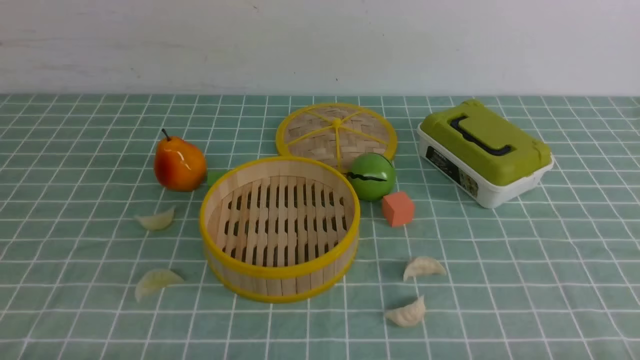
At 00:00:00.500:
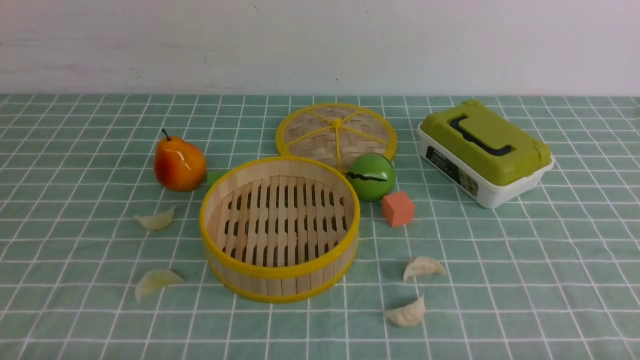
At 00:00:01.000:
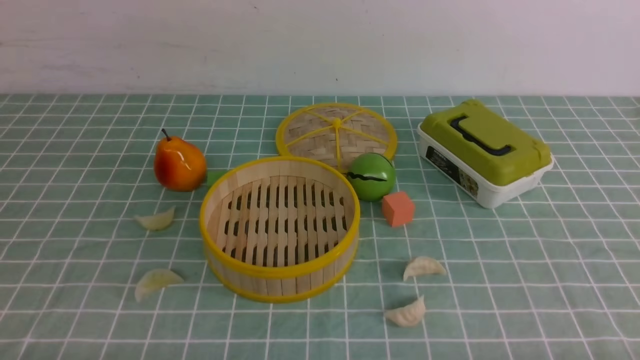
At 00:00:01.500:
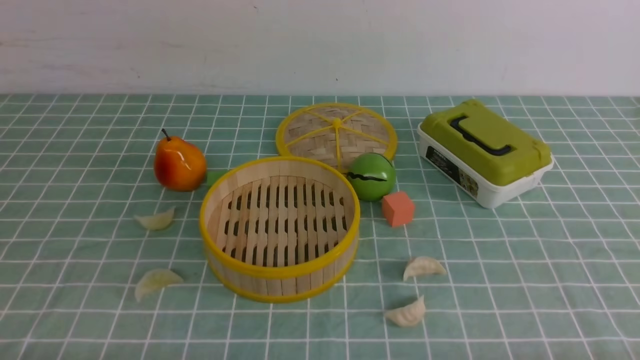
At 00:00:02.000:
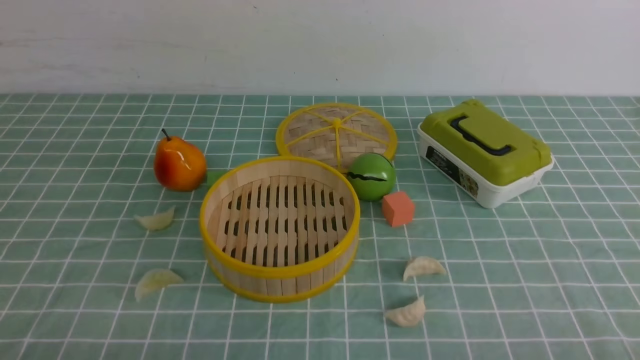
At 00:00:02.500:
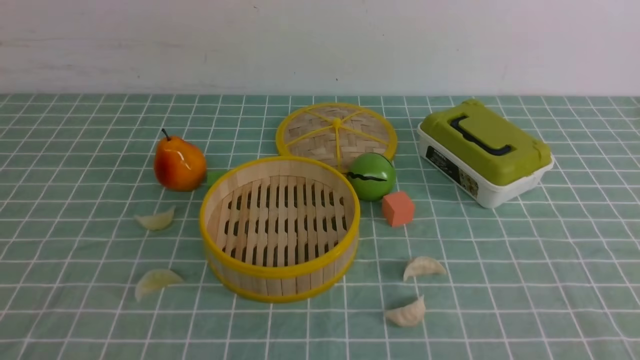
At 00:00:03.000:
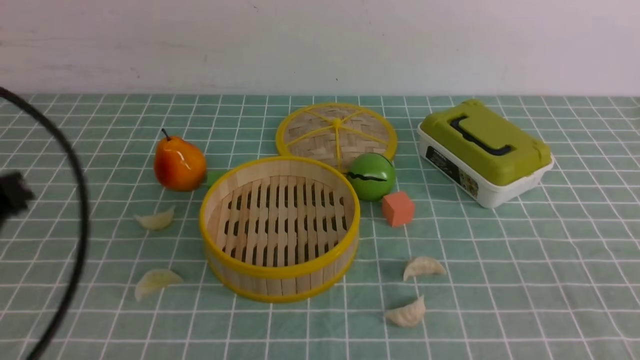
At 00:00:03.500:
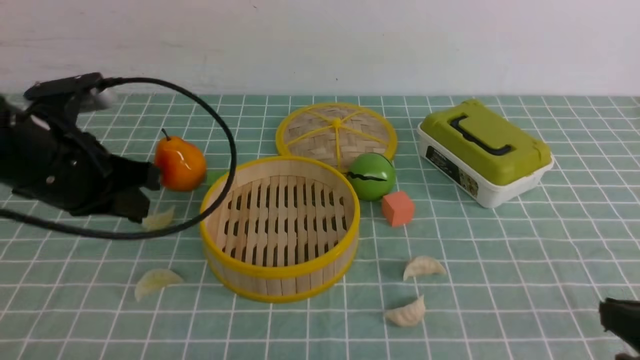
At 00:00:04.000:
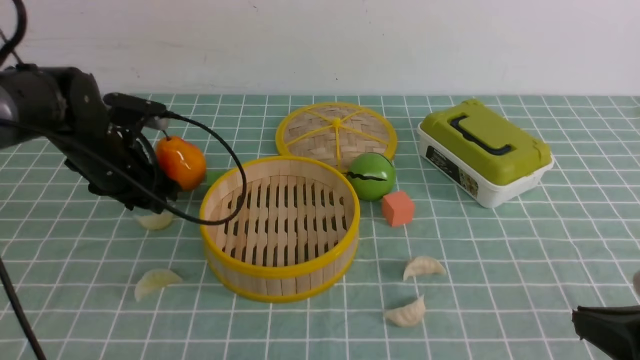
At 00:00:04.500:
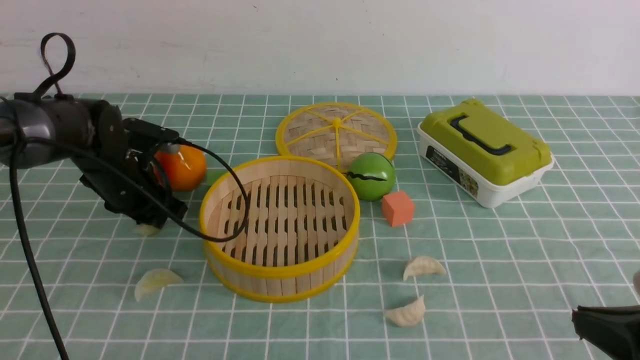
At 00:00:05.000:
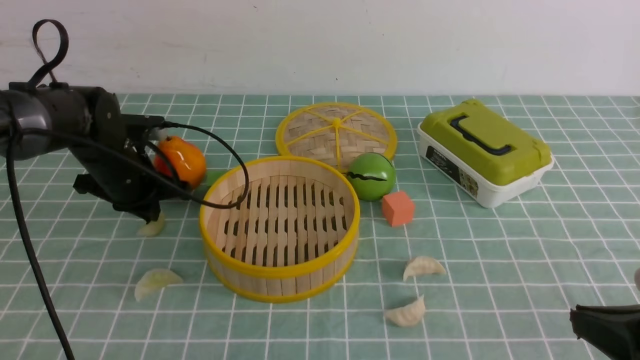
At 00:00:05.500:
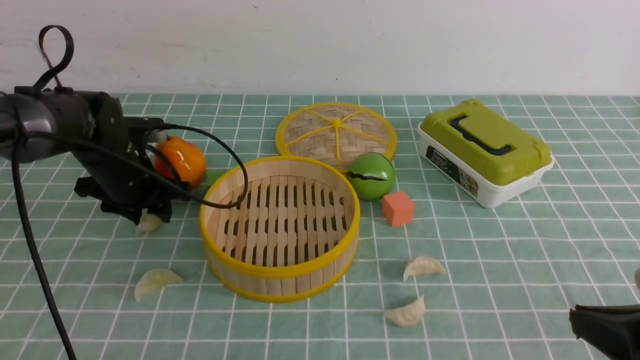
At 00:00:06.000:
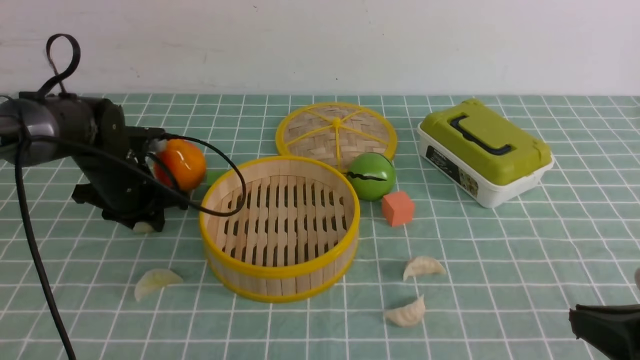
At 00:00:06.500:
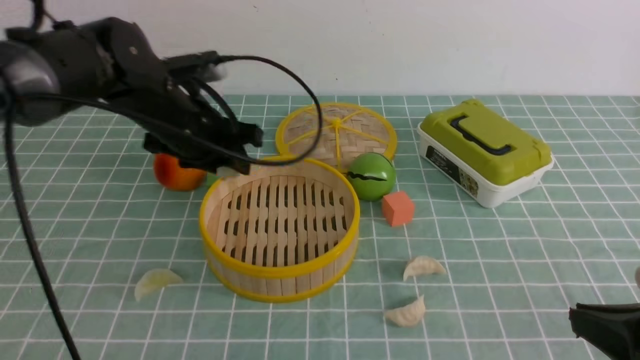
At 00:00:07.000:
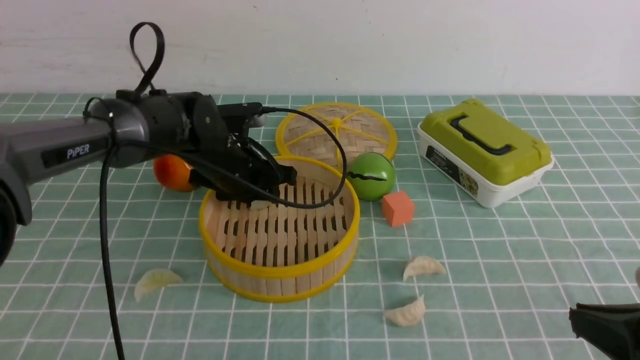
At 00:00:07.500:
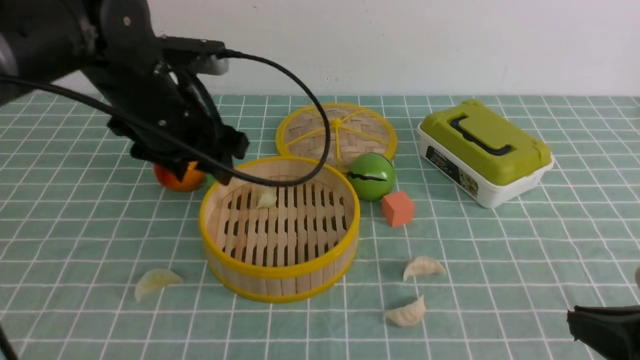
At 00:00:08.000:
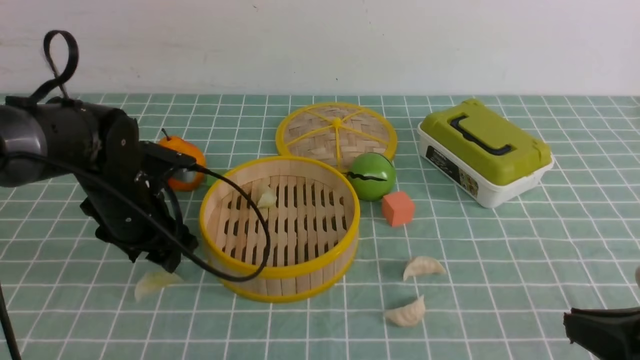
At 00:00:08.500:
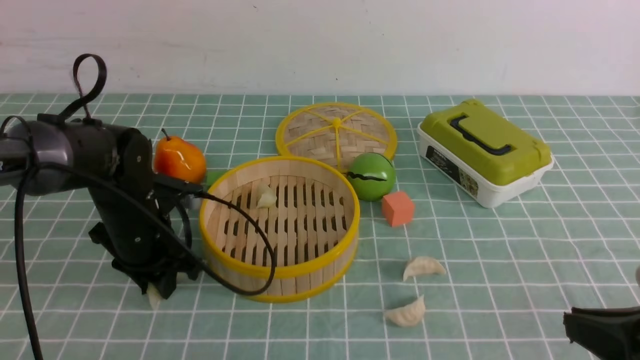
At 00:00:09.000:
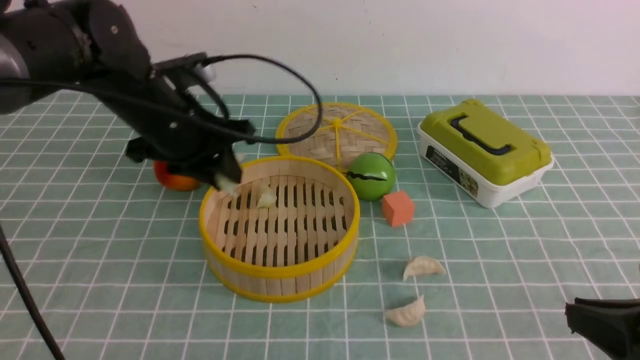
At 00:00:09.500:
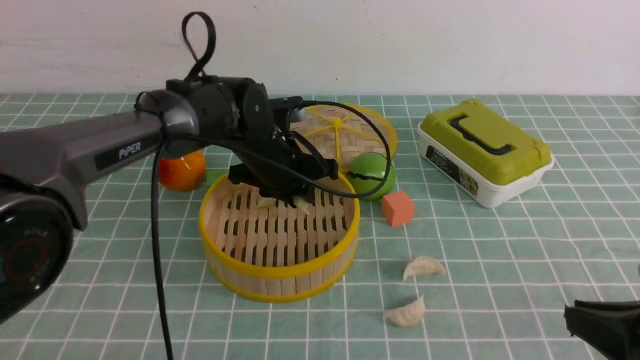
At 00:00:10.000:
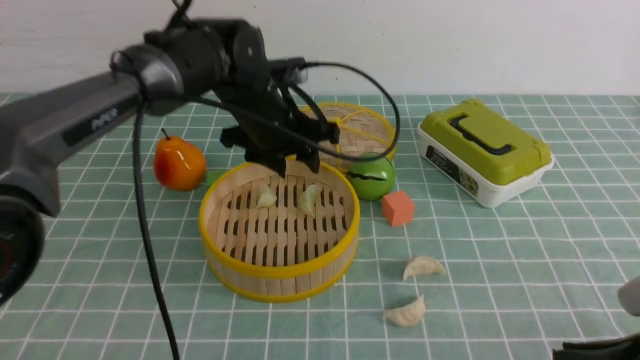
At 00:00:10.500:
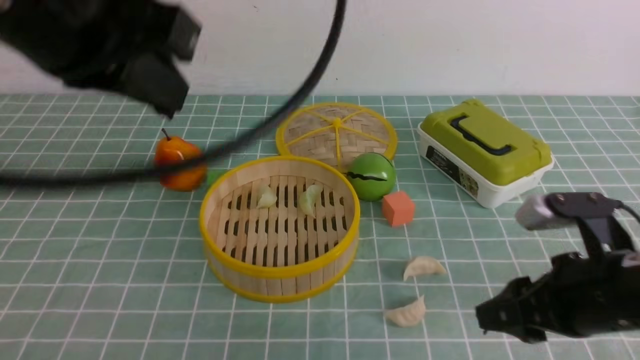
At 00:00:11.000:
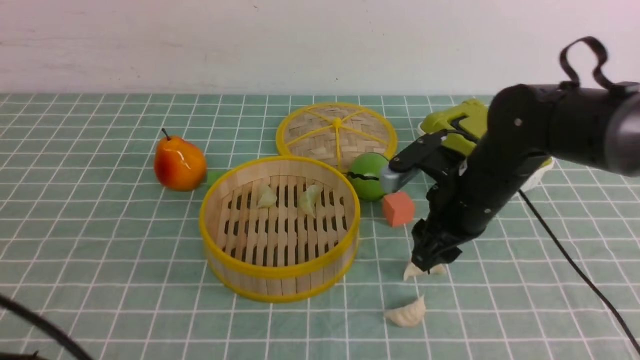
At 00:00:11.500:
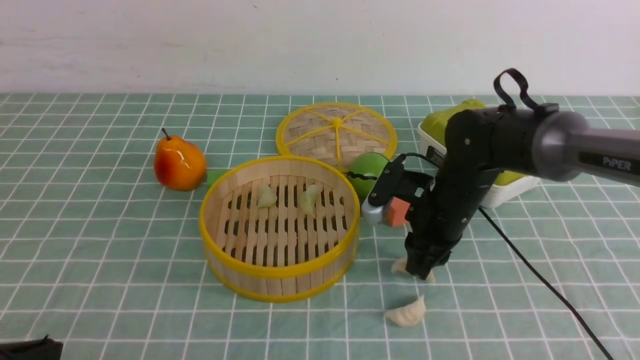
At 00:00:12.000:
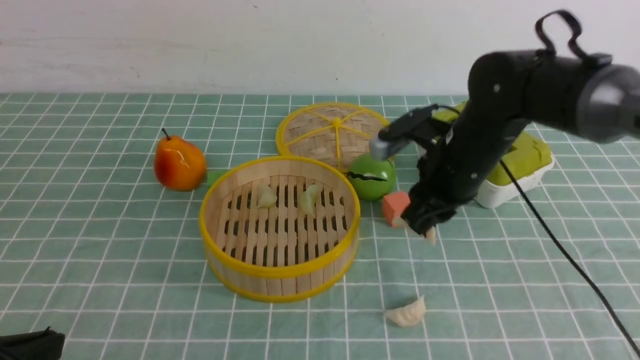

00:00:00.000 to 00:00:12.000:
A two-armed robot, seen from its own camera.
Task of the whole recording: put the dumplings into the steamer on the table with the blue tablecloth.
Step, 00:00:00.000 to 00:00:06.000: use the left arm to grab a dumpling.
Step, 00:00:06.500 to 00:00:07.000: use the left arm to put the dumpling into the steamer.
Step, 00:00:07.500 to 00:00:08.500: use the left arm to grab a dumpling.
Step, 00:00:09.000 to 00:00:10.000: use the left arm to put the dumpling into the steamer.
00:00:02.000 to 00:00:04.000: The left gripper is displaced forward by approximately 35 cm, and closes and opens again. Meanwhile the right gripper moves forward, approximately 10 cm, and closes.
00:00:04.000 to 00:00:06.000: The left gripper closes, then reopens.
00:00:06.000 to 00:00:08.000: The left gripper heads backward, covering about 5 cm, reaches roughly 10 cm to the right, then returns, and opens up.
00:00:08.000 to 00:00:10.000: The left gripper moves up and down over roughly 15 cm, changing direction 2 times.
00:00:10.000 to 00:00:12.000: The right gripper is displaced forward and to the left by approximately 30 cm, and opens, then closes again; the left gripper is displaced backward and to the left by about 35 cm, and closes its fingers.

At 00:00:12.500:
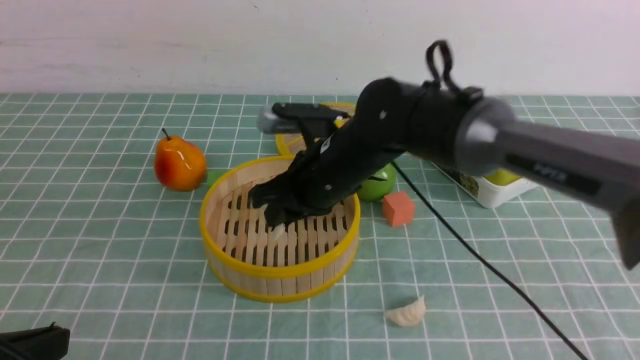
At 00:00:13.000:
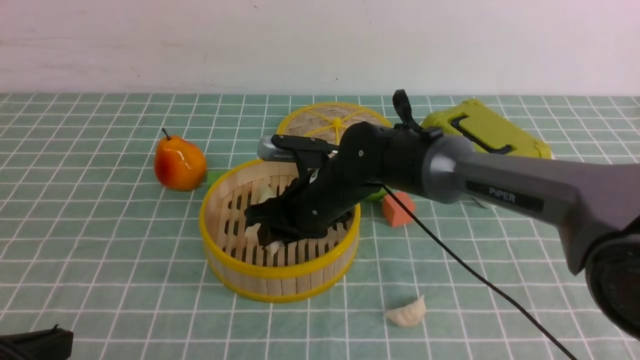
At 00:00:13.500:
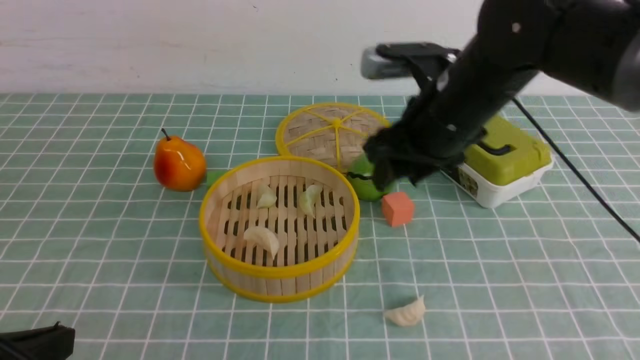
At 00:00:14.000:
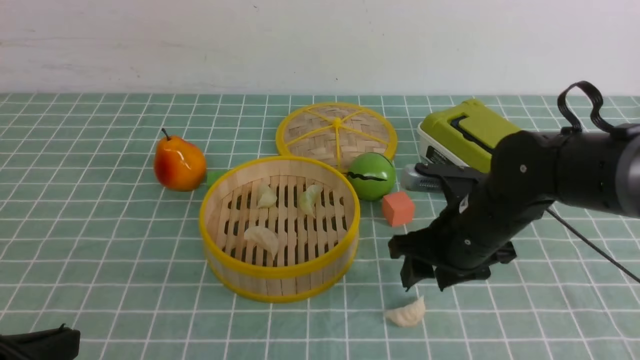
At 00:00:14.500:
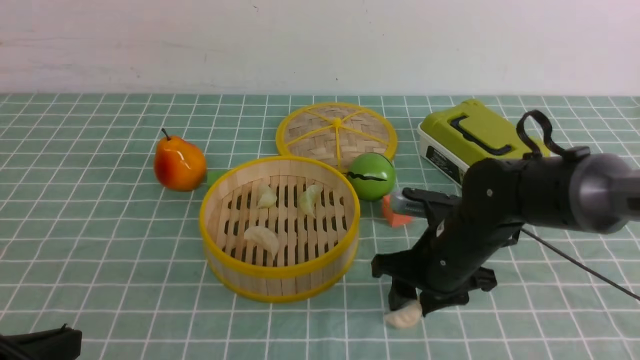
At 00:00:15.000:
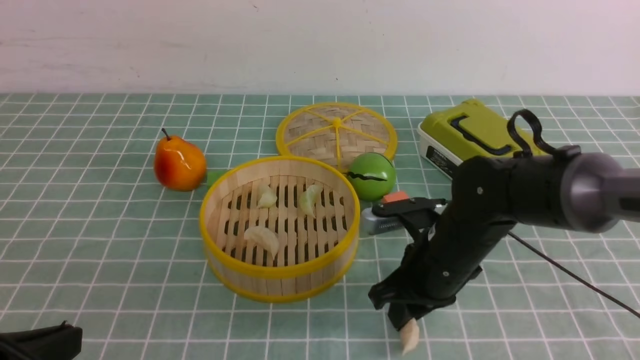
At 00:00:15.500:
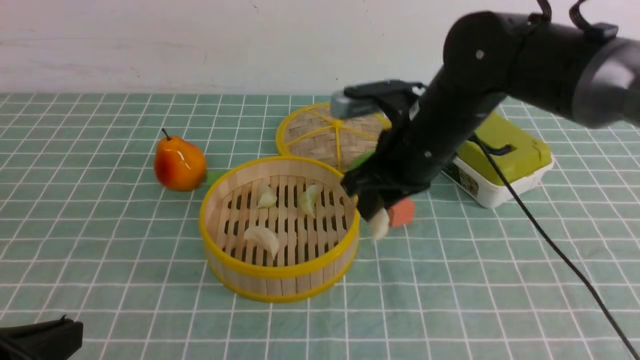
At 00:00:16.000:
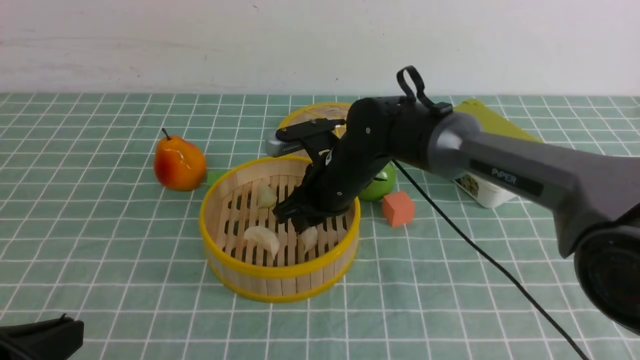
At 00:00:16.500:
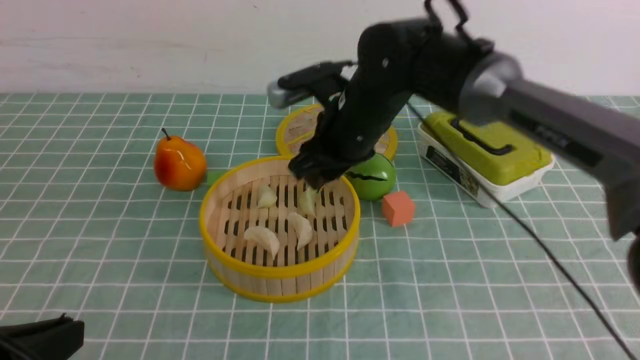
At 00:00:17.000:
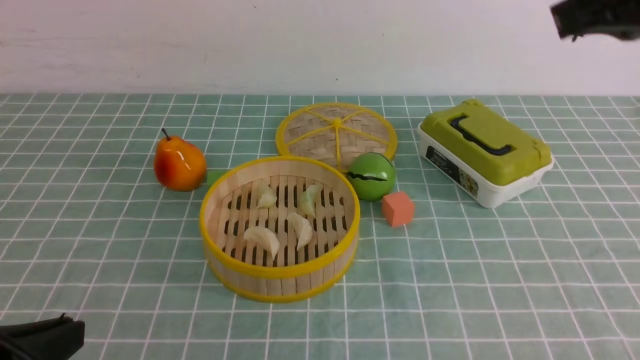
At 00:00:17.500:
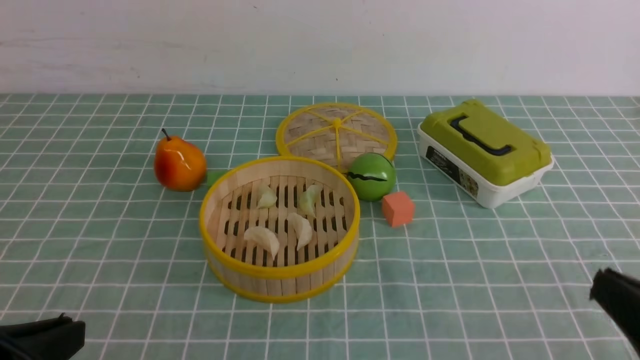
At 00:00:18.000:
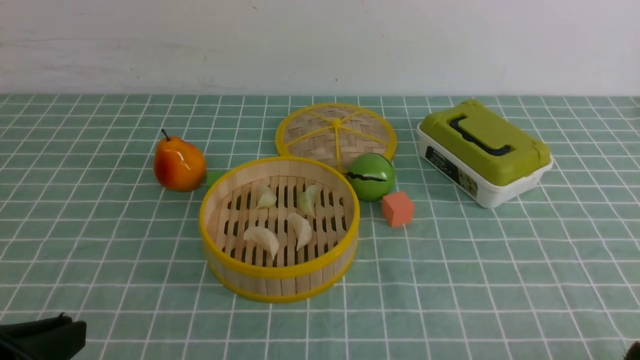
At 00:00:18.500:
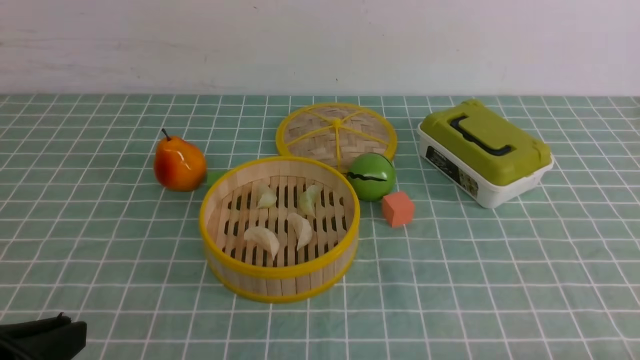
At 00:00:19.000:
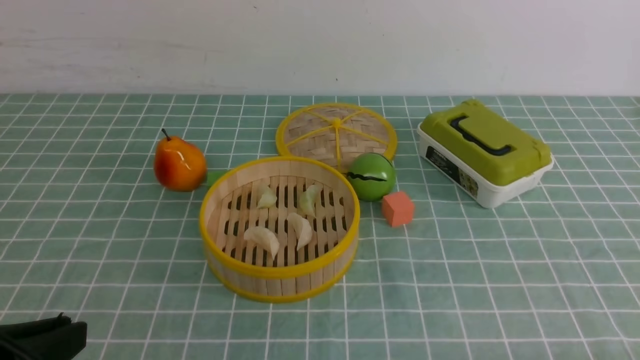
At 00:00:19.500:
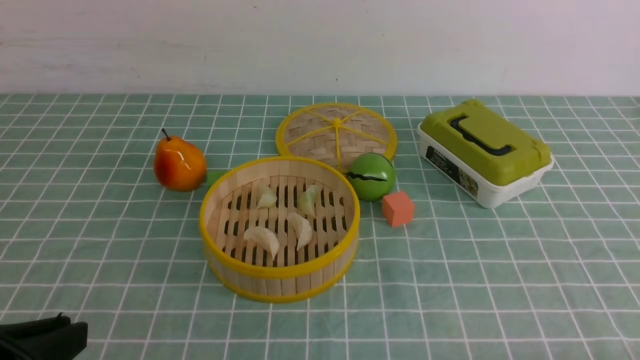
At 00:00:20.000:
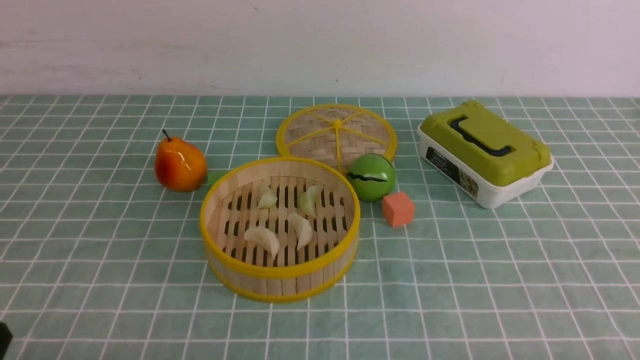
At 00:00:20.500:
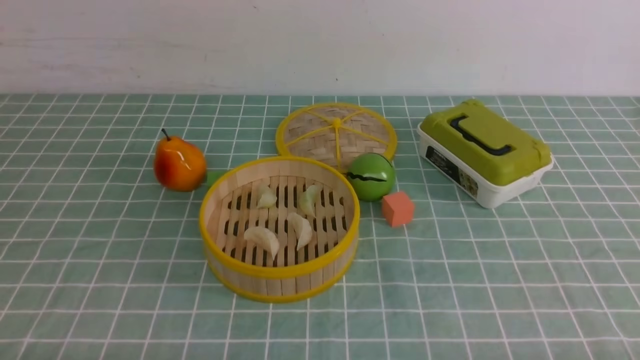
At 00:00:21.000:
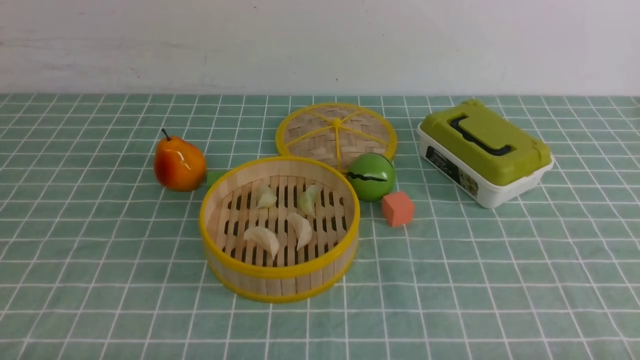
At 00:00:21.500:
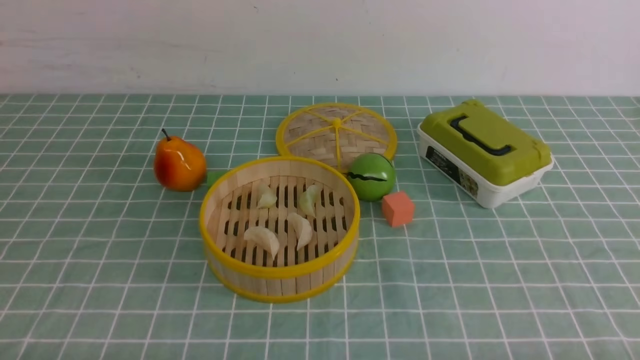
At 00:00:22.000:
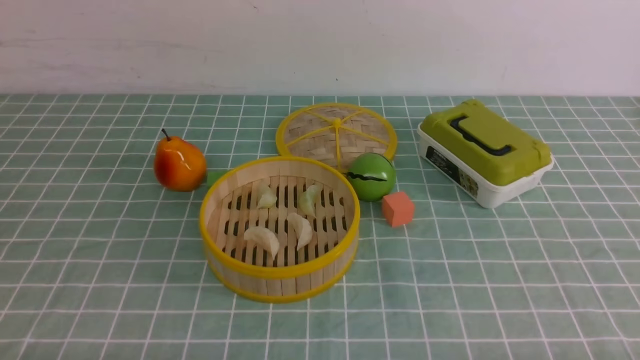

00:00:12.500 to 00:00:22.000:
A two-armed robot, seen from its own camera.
Task of the whole recording: put the dumplings into the steamer on the table with the blue tablecloth.
Step, 00:00:12.500 to 00:00:13.000: use the right arm to put the dumpling into the steamer.
Step, 00:00:13.500 to 00:00:15.000: use the right arm to grab a dumpling.
Step, 00:00:15.500 to 00:00:16.500: use the right arm to put the dumpling into the steamer.
00:00:12.500 to 00:00:14.500: The right gripper heads to the right, downward and backward, covering about 15 cm, and opens its fingers.
00:00:14.500 to 00:00:16.500: The right gripper moves up and down over approximately 15 cm, changing direction 2 times.
00:00:16.500 to 00:00:18.000: The right gripper heads backward and to the right, covering roughly 40 cm, and closes its fingers.
00:00:18.000 to 00:00:20.000: The left gripper heads downward, covering about 5 cm.
